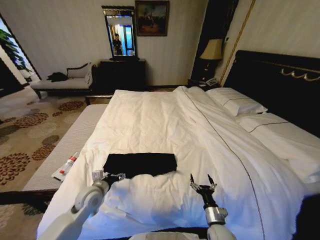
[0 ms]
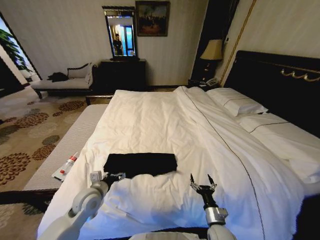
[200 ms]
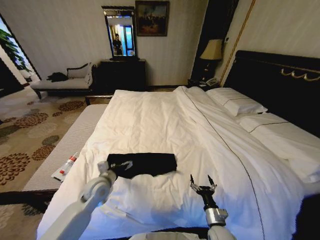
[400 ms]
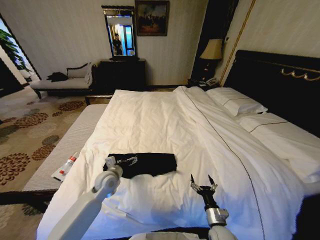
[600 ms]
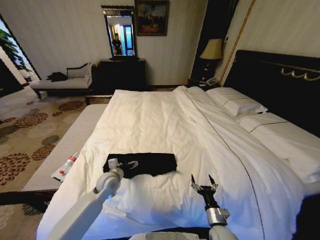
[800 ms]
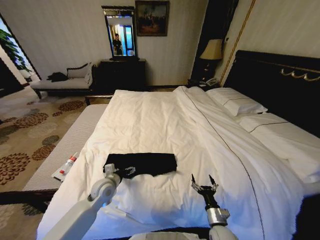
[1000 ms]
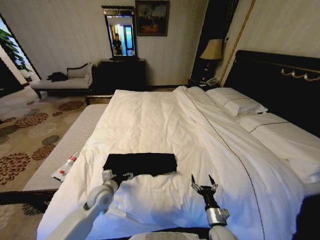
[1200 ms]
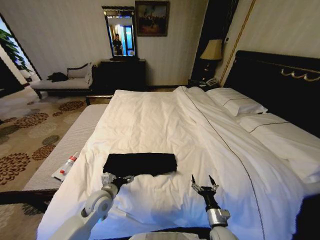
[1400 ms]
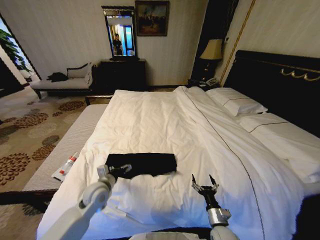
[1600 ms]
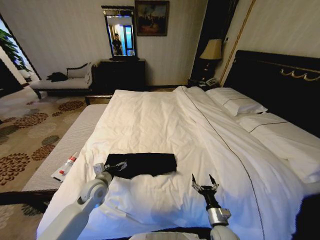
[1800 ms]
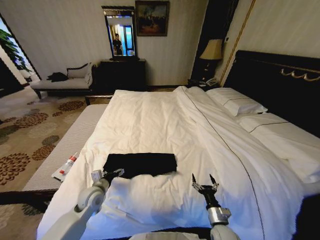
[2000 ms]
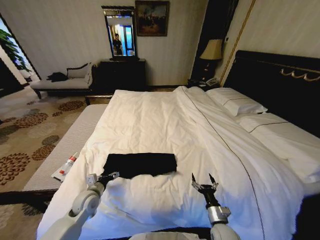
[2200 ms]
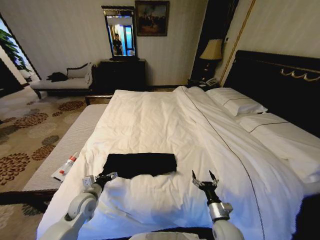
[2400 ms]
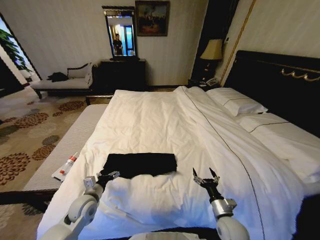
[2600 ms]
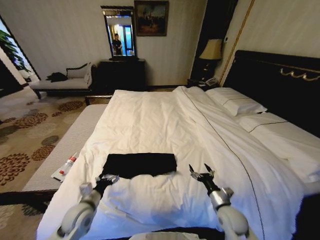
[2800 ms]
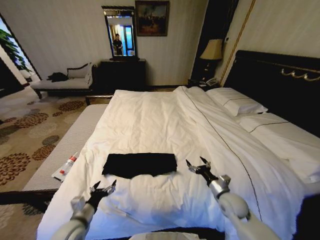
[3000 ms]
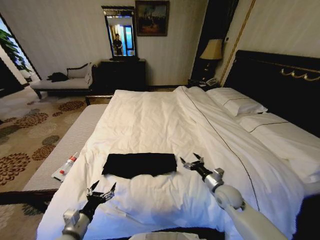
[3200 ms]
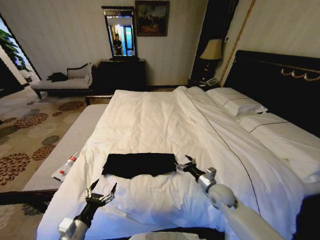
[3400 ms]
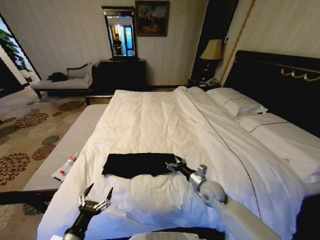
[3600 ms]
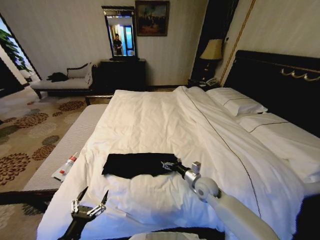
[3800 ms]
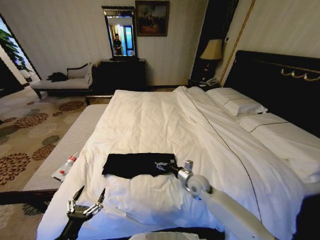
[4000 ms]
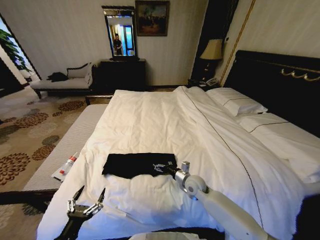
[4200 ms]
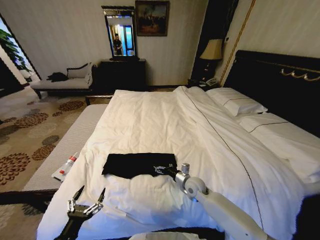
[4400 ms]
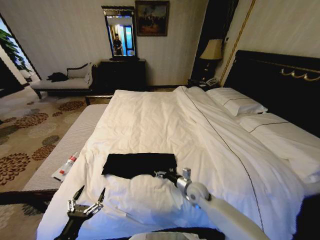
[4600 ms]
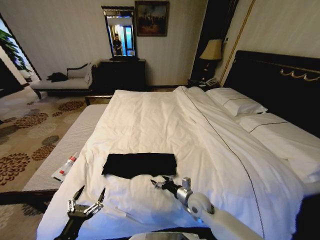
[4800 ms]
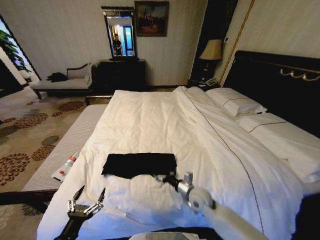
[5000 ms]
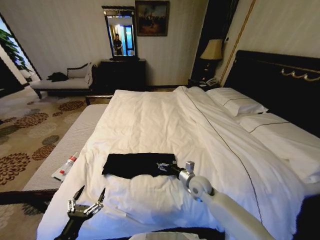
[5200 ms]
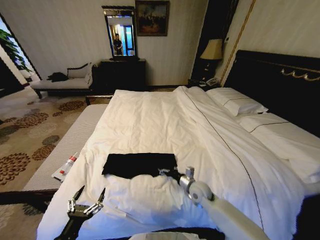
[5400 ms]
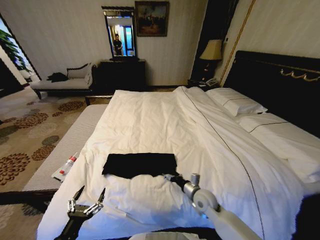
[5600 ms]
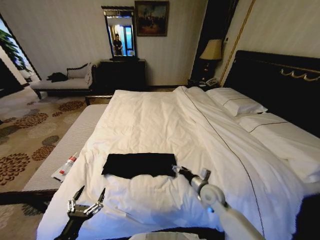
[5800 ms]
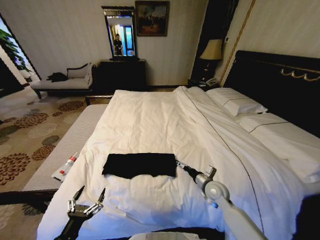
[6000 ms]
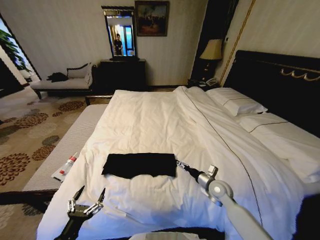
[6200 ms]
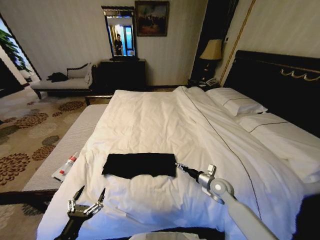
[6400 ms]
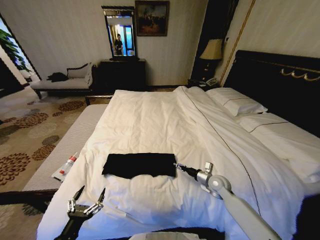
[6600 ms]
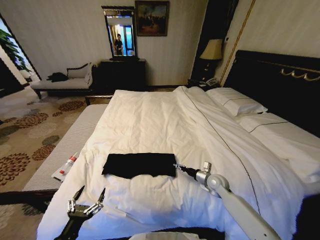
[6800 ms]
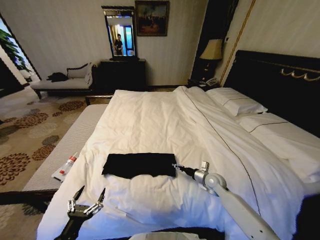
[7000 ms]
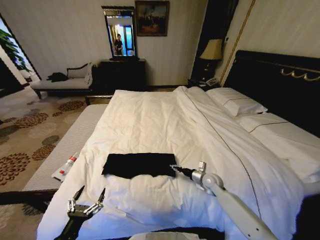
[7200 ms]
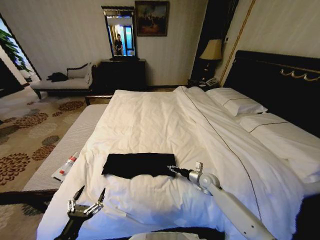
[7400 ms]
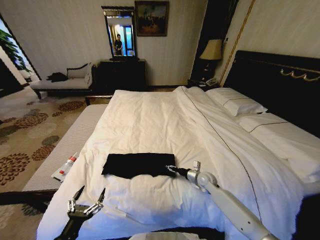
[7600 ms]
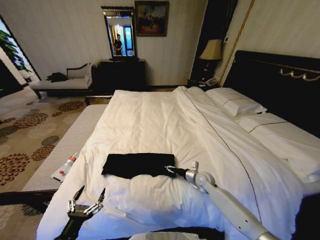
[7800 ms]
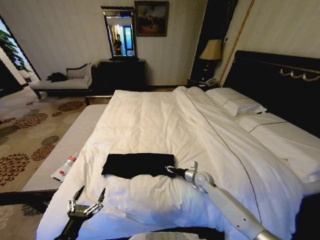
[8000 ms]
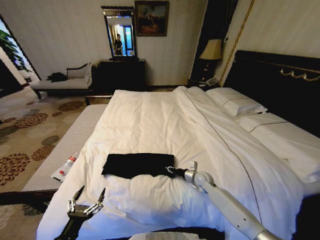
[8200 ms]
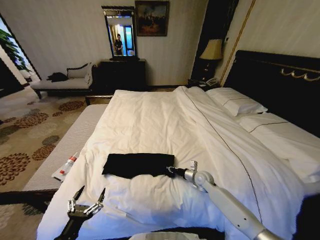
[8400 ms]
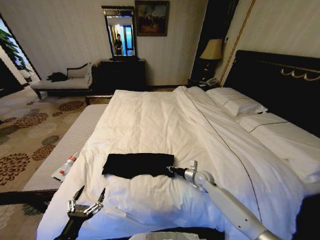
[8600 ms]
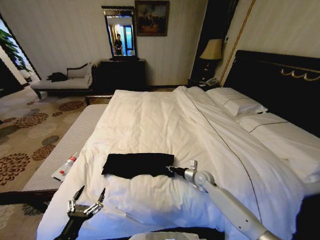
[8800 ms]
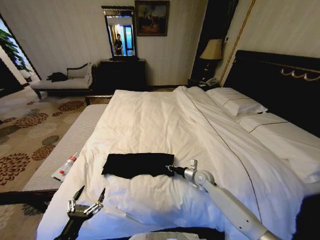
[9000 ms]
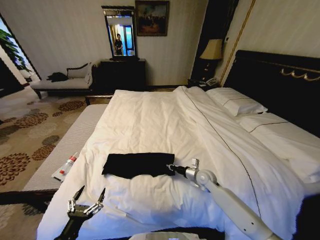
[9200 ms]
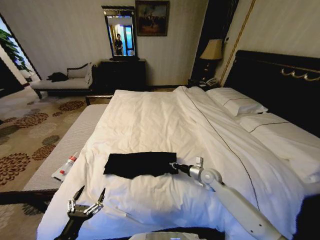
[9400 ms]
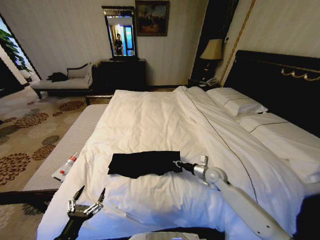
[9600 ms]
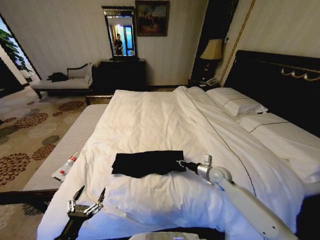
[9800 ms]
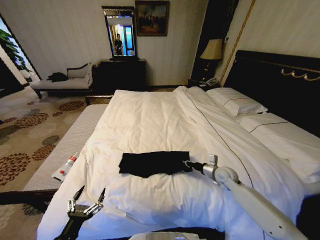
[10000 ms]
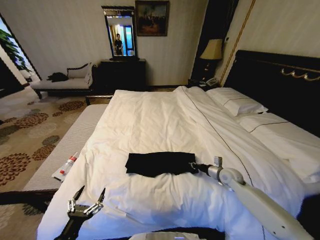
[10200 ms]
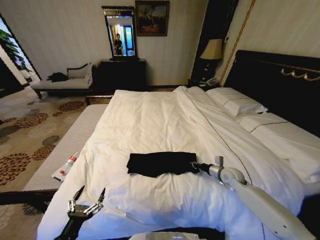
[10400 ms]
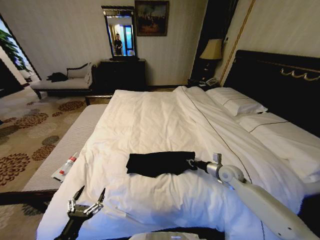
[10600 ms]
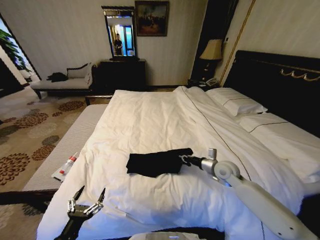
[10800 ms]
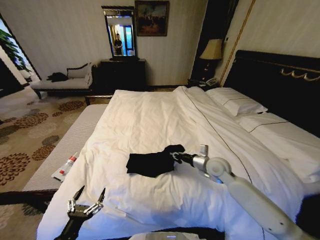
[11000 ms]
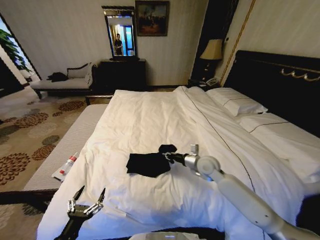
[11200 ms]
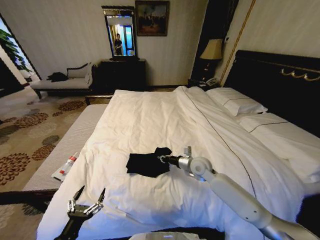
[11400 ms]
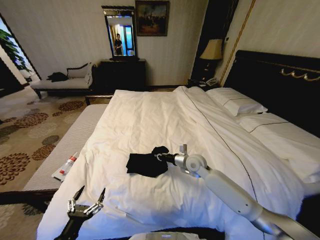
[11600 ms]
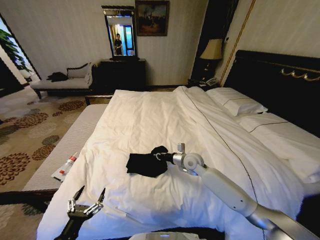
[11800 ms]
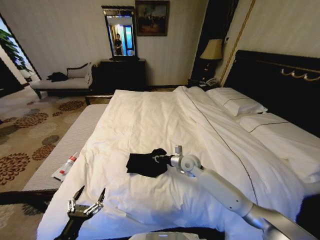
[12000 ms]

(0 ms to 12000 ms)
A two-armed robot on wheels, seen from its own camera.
Task of the whole recording: Fold the clothes on the bed.
0 ms - 1600 ms: The left gripper moves approximately 5 cm forward and comes back.
1600 ms - 3000 ms: The right gripper is displaced forward and upward by roughly 15 cm, while the left gripper shifts about 15 cm backward and to the left.
3000 ms - 4400 ms: The right gripper travels to the left and forward by approximately 15 cm. The left gripper shifts approximately 10 cm backward.
4400 ms - 6000 ms: The right gripper goes approximately 10 cm to the right.
6000 ms - 7600 ms: The right gripper travels forward and downward by roughly 10 cm.
7600 ms - 9000 ms: The right gripper closes its fingers.
9000 ms - 10400 ms: The right gripper moves to the right, about 10 cm.
10400 ms - 12000 ms: The right gripper shifts some 20 cm to the left.

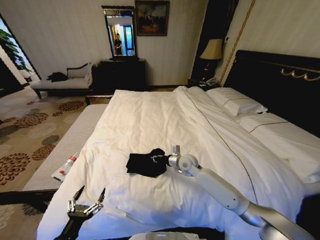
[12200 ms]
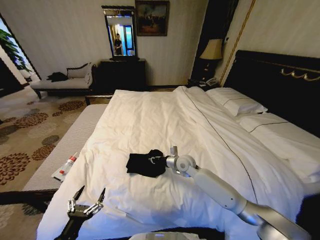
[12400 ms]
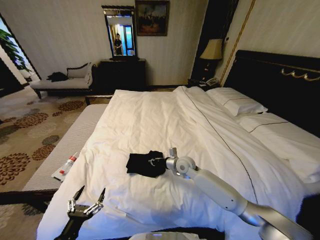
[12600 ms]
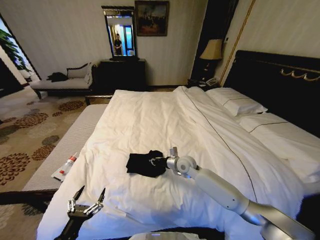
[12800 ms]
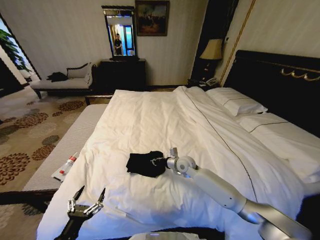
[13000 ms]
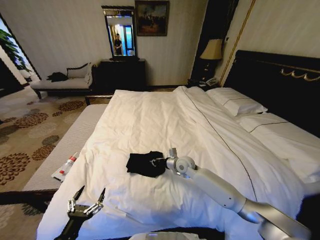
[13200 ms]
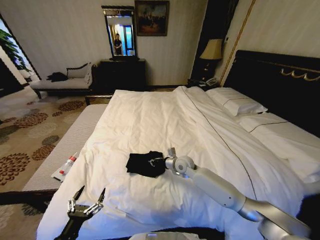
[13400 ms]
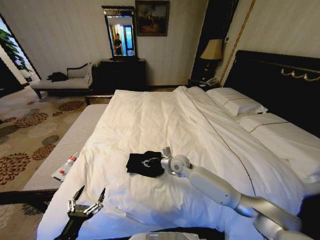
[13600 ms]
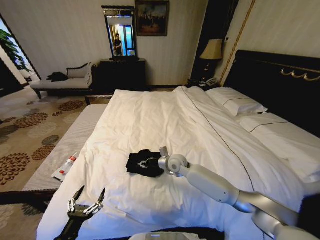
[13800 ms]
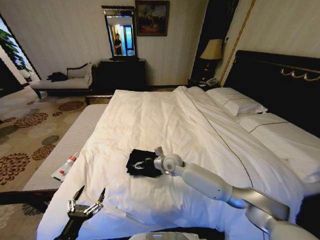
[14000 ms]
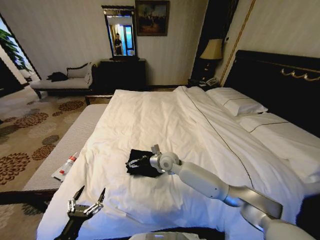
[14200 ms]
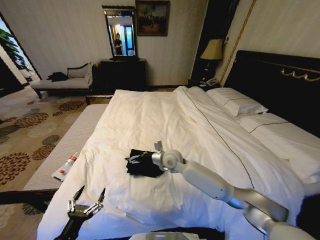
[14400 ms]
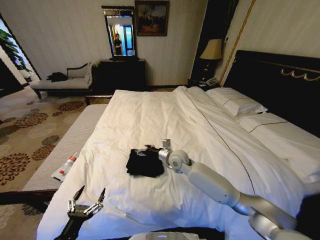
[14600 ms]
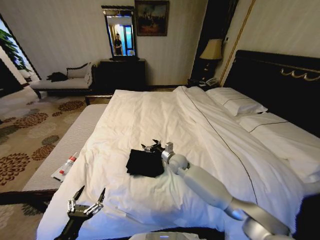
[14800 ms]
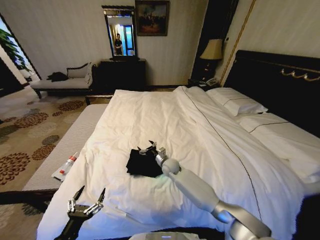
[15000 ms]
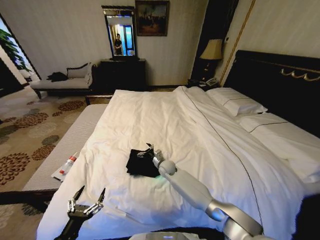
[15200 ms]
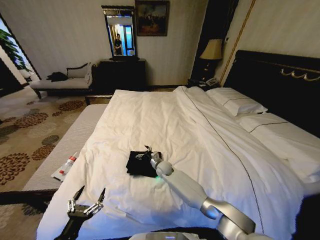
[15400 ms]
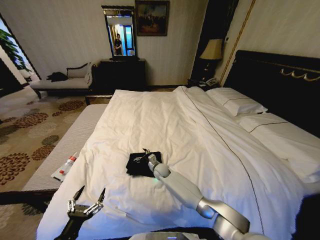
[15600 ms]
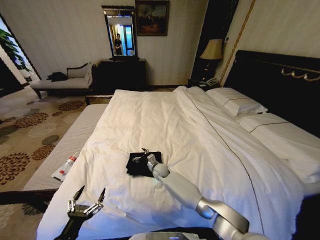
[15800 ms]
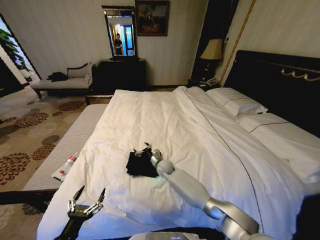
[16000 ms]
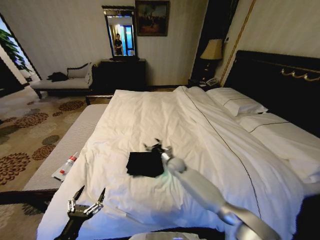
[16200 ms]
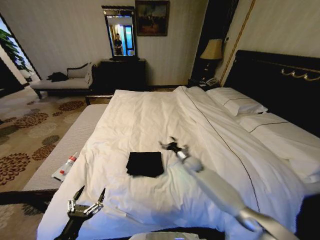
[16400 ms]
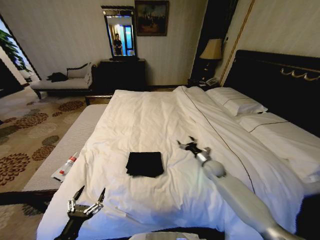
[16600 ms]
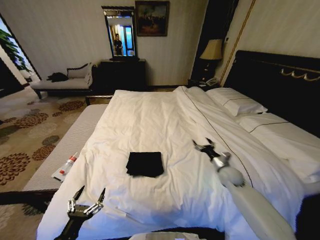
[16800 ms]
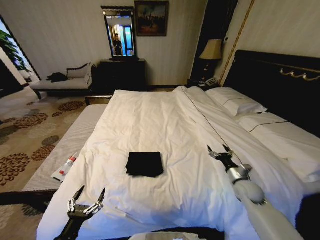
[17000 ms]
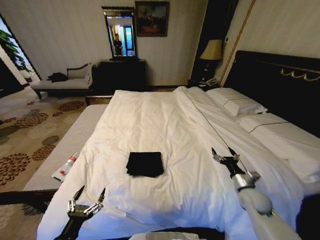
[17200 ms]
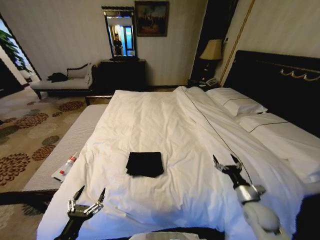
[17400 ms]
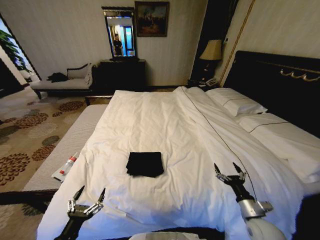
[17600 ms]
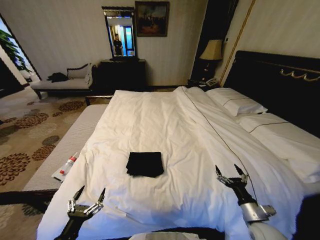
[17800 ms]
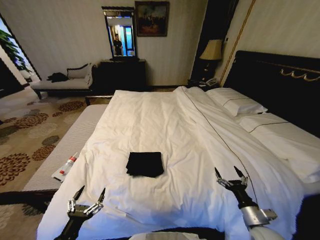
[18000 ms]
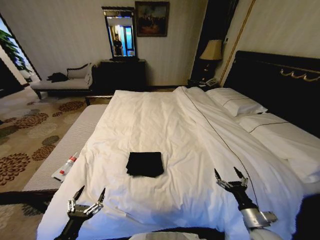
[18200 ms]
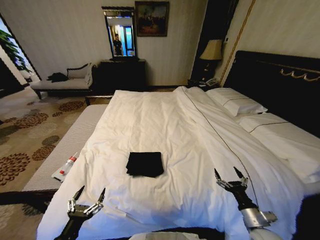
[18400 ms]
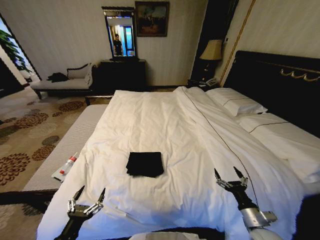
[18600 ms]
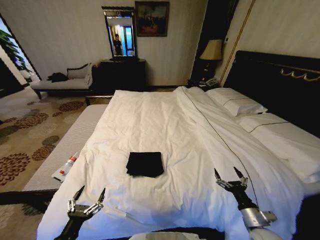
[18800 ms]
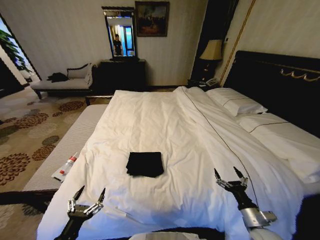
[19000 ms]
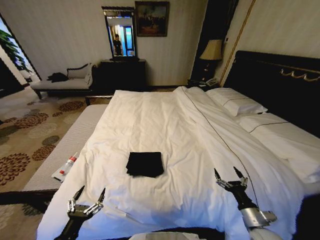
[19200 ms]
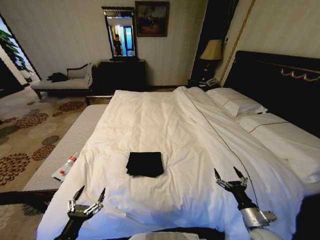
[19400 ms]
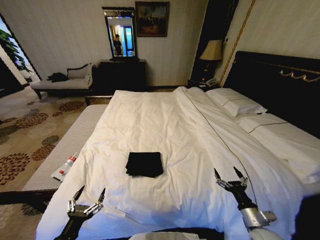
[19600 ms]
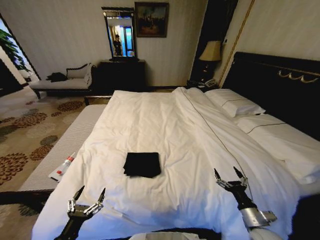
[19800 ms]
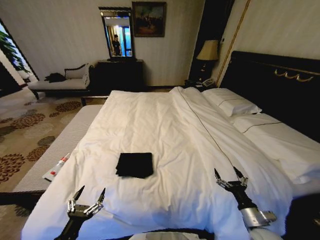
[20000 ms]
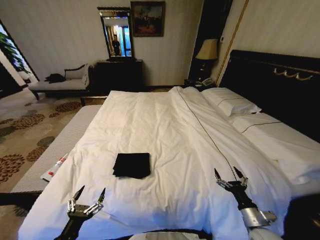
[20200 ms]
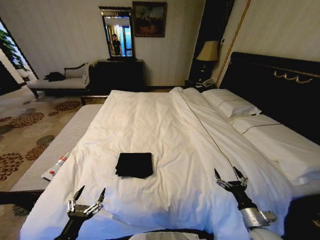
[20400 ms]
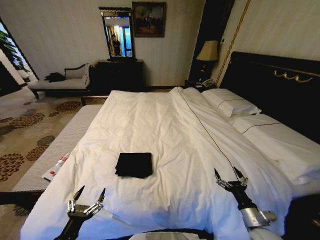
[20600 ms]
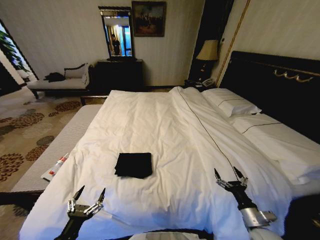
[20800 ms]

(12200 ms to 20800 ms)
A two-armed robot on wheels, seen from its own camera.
Task of the whole recording: Fold the clothes on the bed.
12200 ms - 13600 ms: The grippers stay close to where they were, moving slightly.
13600 ms - 15000 ms: The right gripper moves downward, approximately 5 cm, and opens.
15000 ms - 16600 ms: The right gripper heads to the right, covering approximately 20 cm.
16600 ms - 18000 ms: The right gripper heads backward, covering roughly 25 cm.
18000 ms - 20800 ms: Neither gripper changes place.

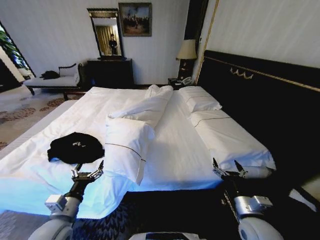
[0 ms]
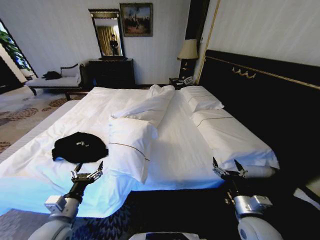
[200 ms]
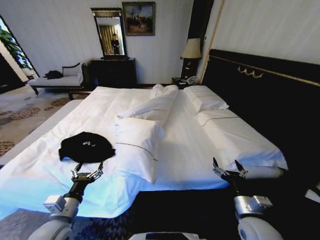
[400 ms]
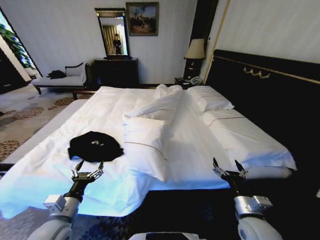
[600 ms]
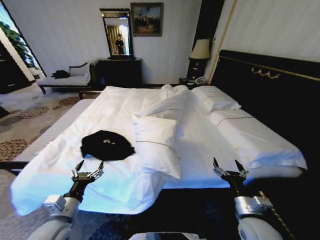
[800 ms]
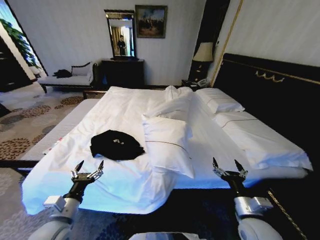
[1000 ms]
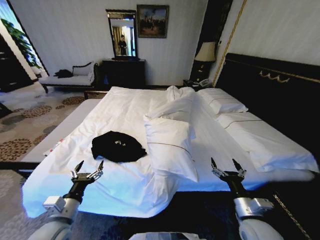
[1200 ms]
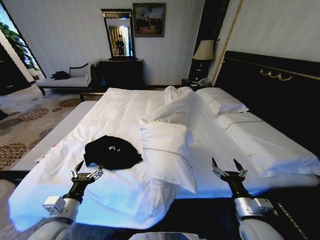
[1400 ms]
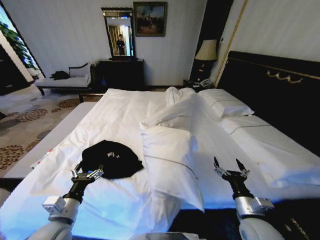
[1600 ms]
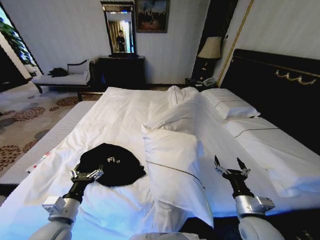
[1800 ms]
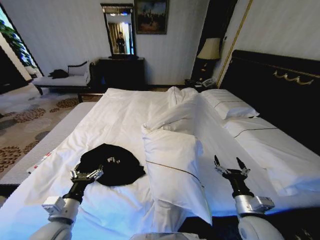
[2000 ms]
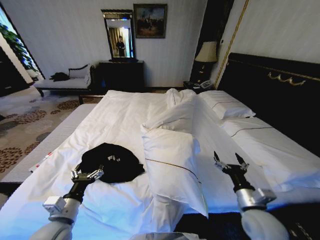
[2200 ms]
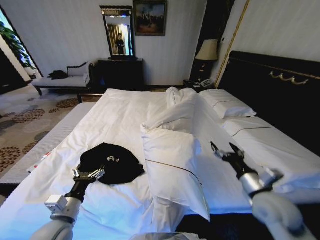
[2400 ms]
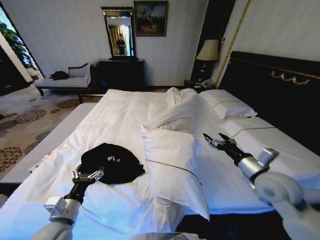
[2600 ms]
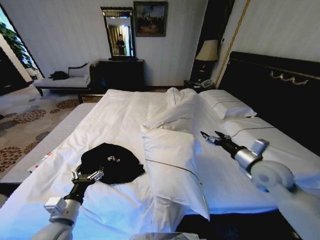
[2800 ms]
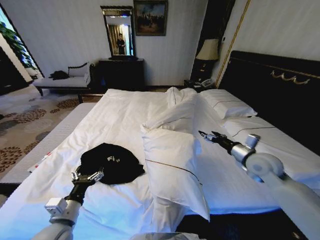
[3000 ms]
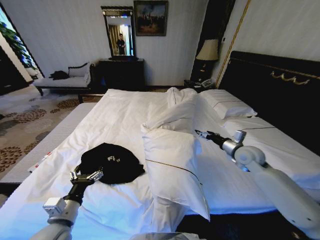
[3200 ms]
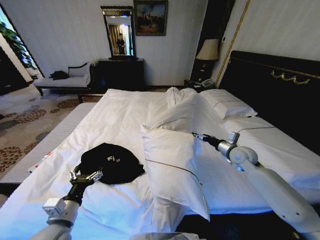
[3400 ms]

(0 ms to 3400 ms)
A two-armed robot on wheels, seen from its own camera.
Task of the whole recording: Fold the clothes on the bed.
1600 ms - 3400 ms: The right gripper heads forward, covering roughly 25 cm.
